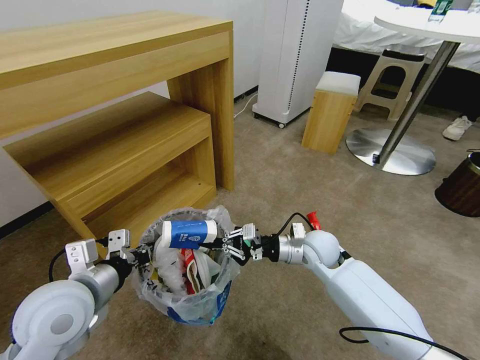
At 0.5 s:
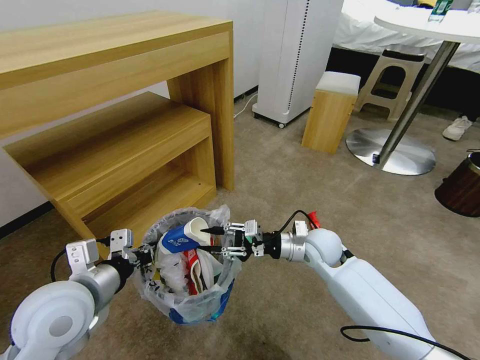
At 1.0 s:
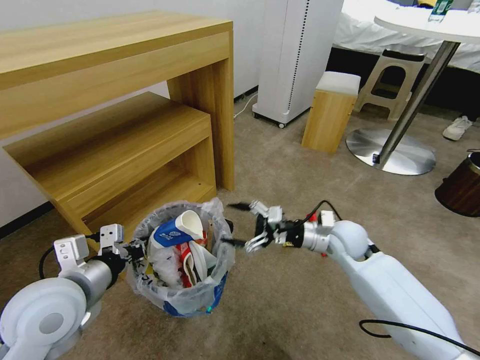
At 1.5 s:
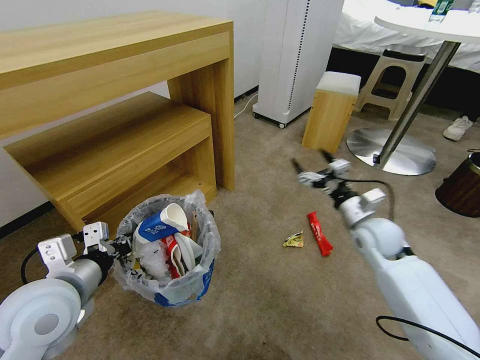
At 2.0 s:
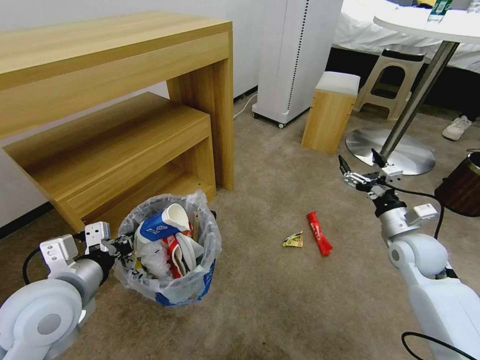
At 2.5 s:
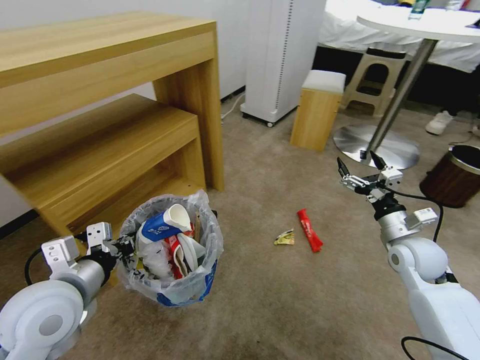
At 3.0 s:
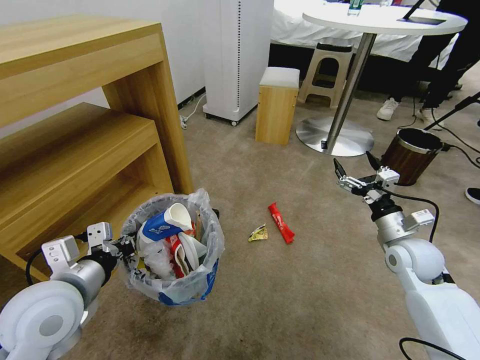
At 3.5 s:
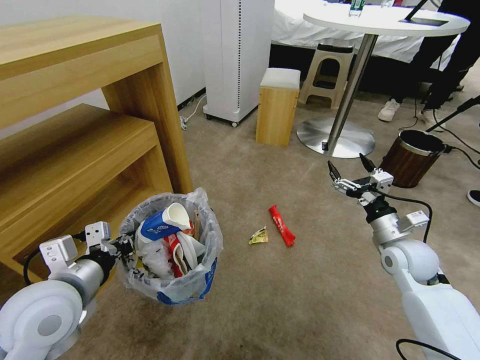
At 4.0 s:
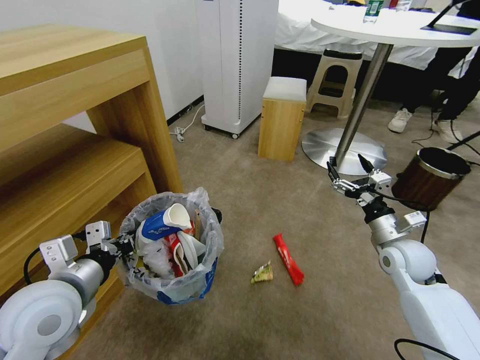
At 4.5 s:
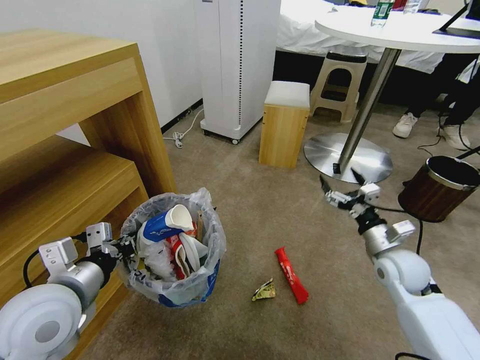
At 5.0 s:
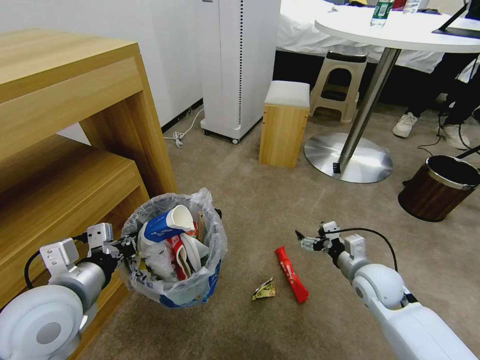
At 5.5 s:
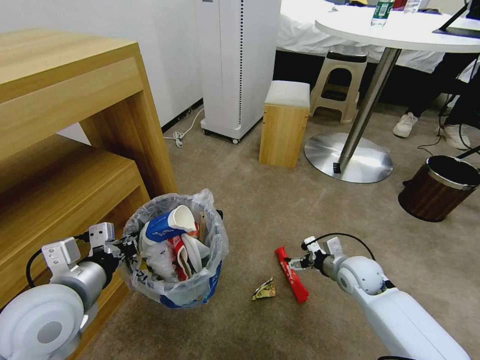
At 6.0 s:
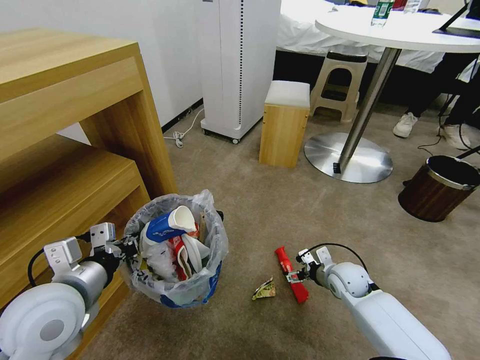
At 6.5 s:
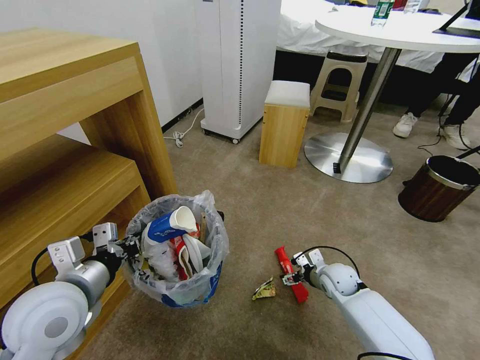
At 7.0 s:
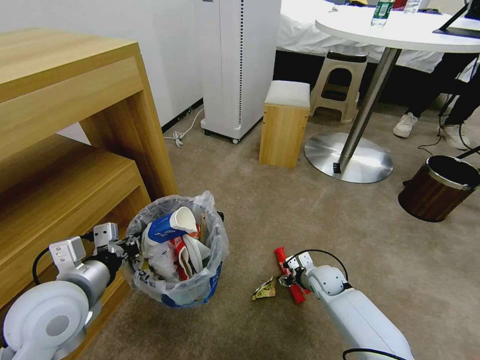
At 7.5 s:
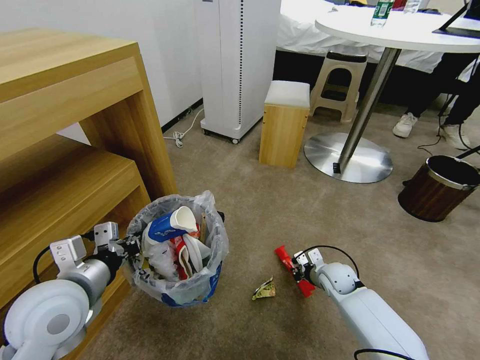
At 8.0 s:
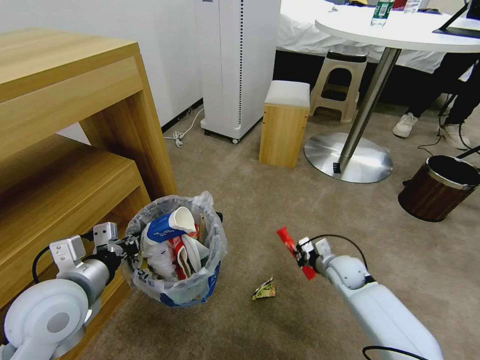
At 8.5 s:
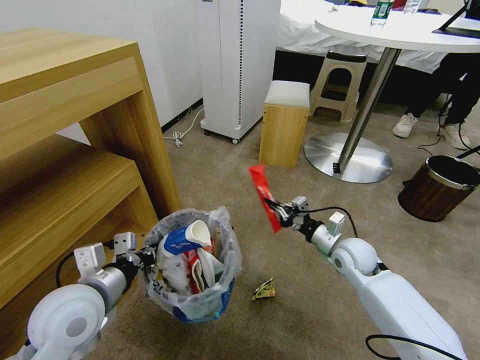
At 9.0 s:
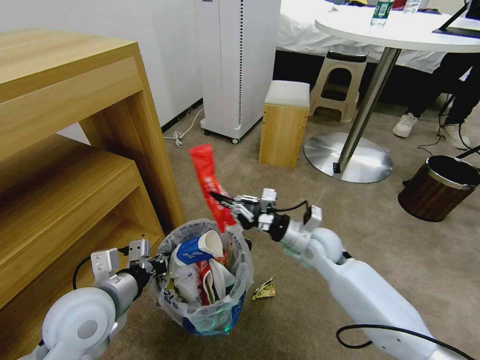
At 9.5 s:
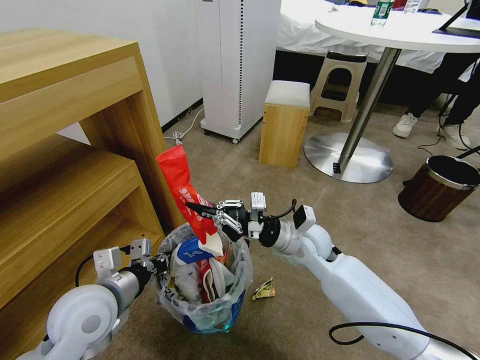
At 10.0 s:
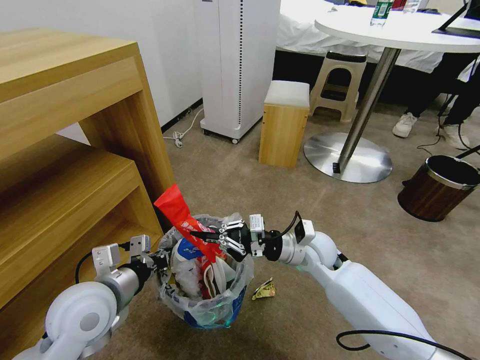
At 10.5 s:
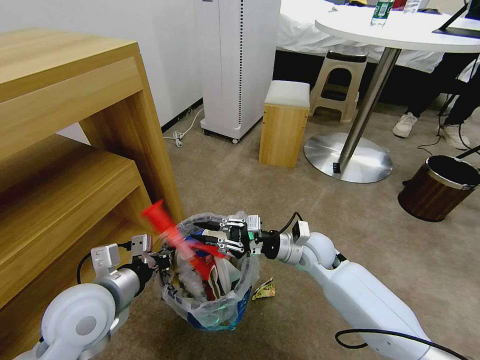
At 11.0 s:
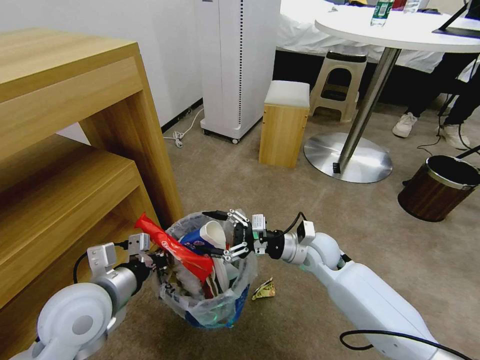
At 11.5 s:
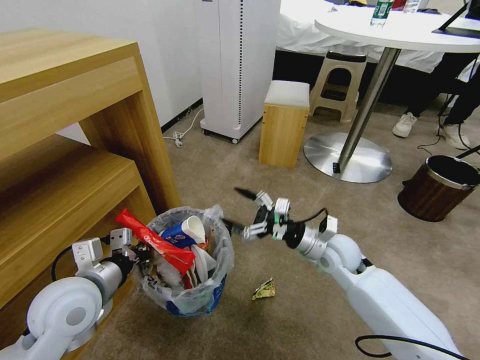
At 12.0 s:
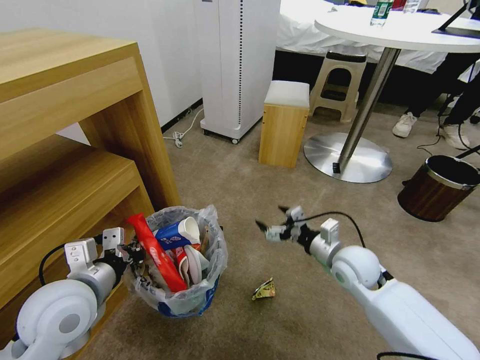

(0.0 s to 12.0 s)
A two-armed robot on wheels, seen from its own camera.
Task of the whole recording: Pick up the trash bin and place the garbage on the floor into it.
0.0 s - 2.0 s: The right gripper goes about 20 cm to the right, and opens up.
4.0 s - 6.0 s: The right gripper shifts about 15 cm downward and to the left.
6.0 s - 8.0 s: The right gripper closes its fingers.
8.0 s - 10.0 s: The right gripper is displaced upward and to the left by roughly 20 cm.
10.0 s - 12.0 s: The right gripper heads to the right, covering roughly 10 cm, and opens its fingers.

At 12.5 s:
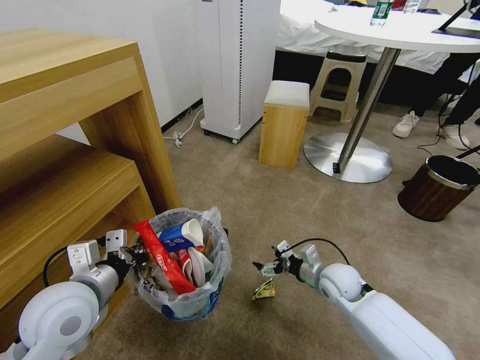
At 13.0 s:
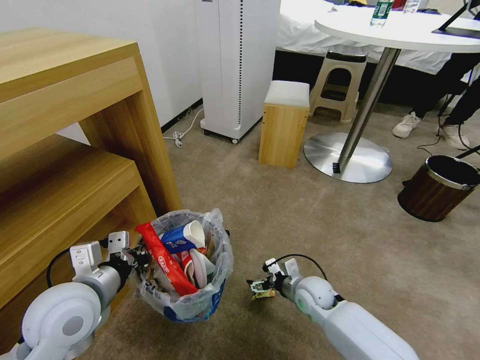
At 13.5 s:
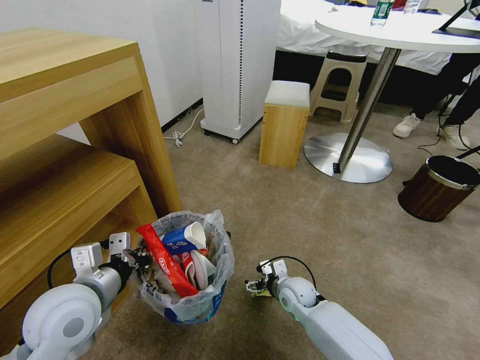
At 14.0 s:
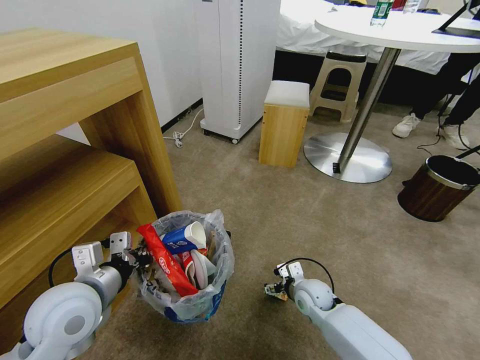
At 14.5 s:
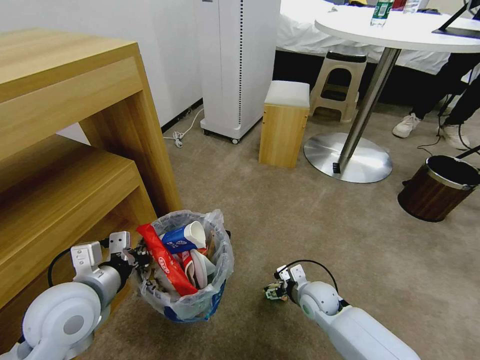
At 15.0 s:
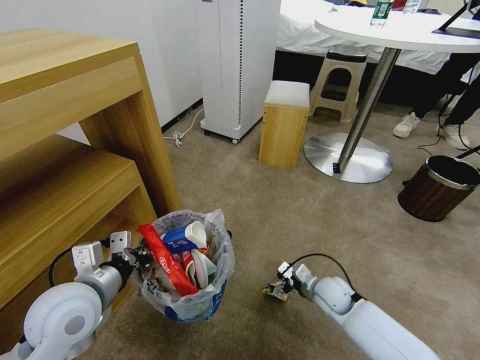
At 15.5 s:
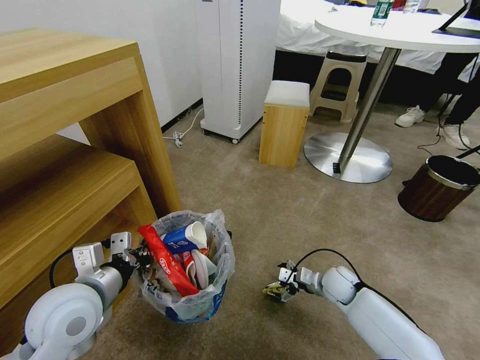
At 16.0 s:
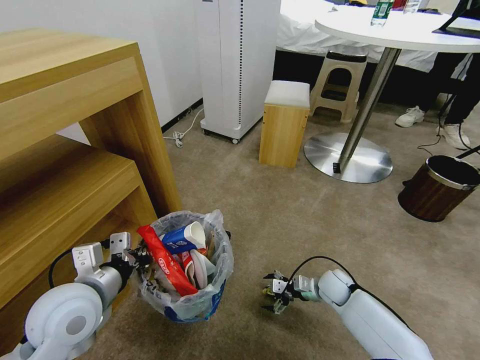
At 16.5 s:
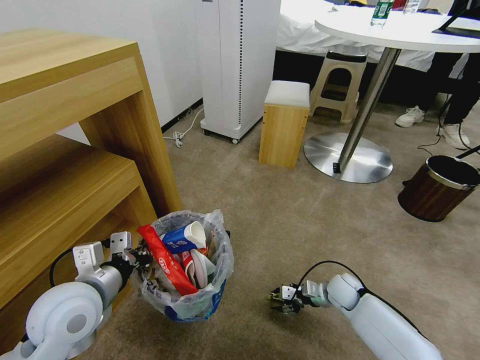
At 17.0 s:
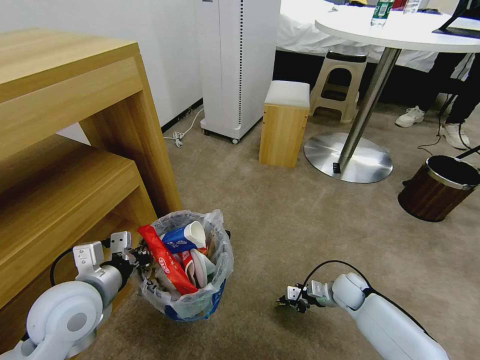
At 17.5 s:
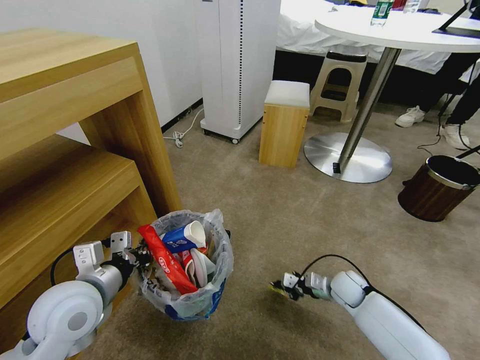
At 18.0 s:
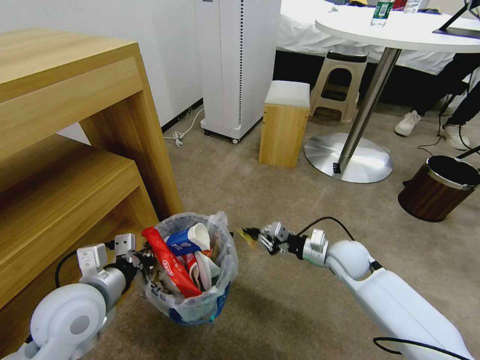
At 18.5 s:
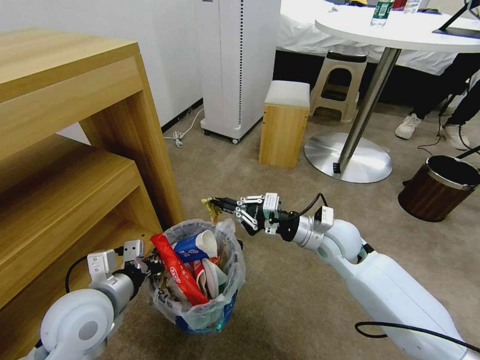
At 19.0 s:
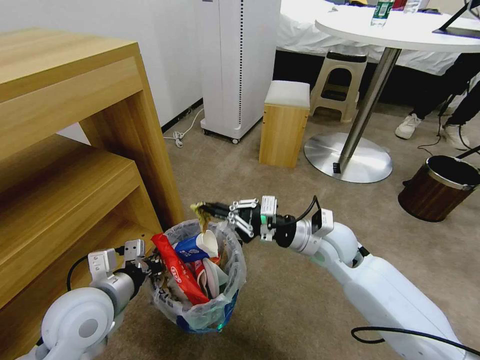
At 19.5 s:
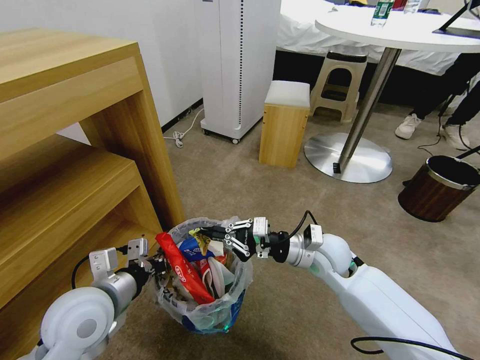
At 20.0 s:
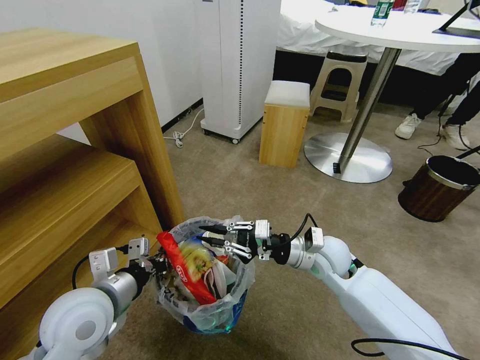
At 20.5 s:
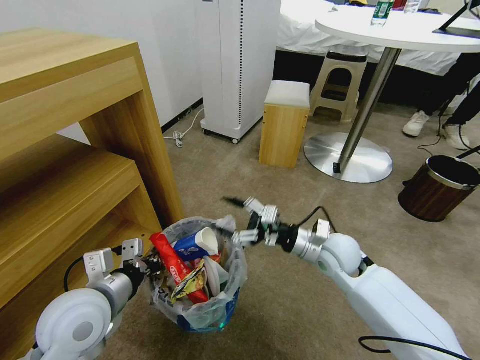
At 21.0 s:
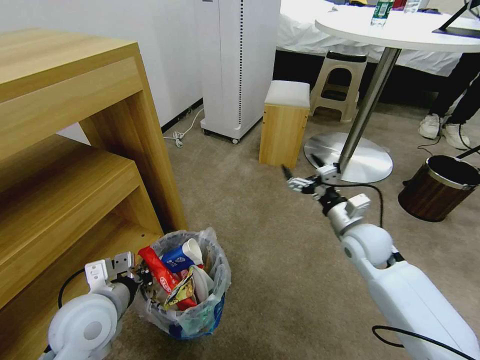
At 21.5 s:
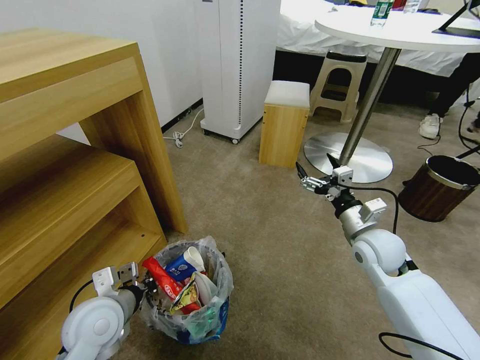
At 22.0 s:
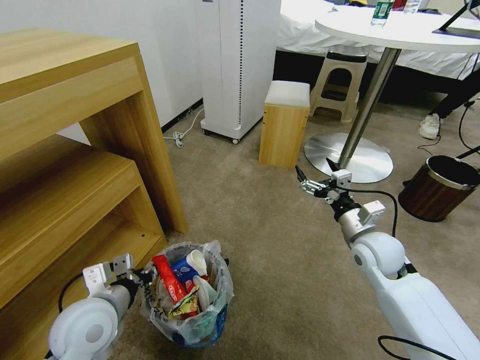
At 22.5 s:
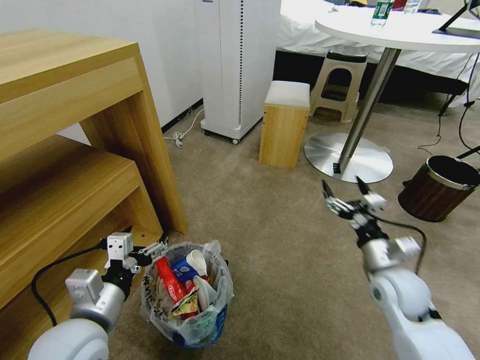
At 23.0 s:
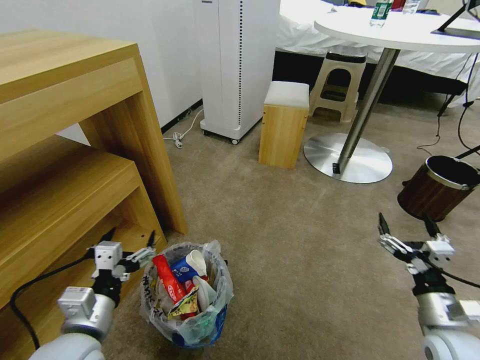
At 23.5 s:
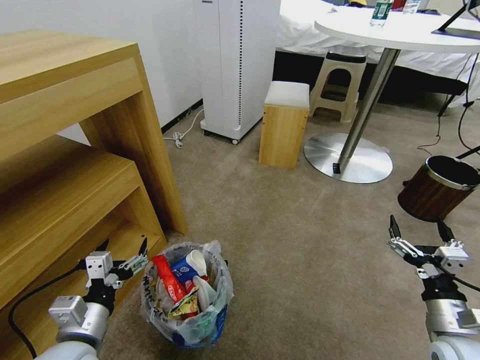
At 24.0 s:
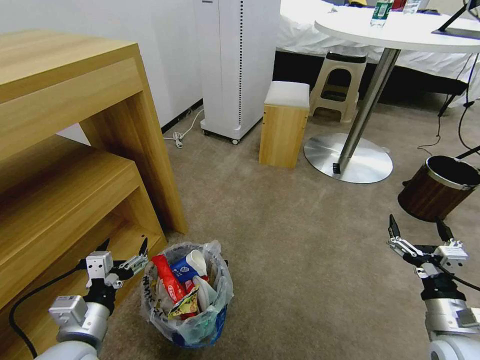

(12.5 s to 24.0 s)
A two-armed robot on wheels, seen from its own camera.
Task of the whole recording: Pick up the trash bin and place the garbage on the floor into it.
12.5 s - 14.5 s: The right gripper shifts approximately 5 cm downward.
14.5 s - 16.5 s: The right gripper heads to the right, covering approximately 10 cm, and closes up.
16.5 s - 18.5 s: The right gripper heads upward and to the left, covering about 25 cm, and closes its fingers.
18.5 s - 20.0 s: The grippers stay close to where they were, moving slightly.
20.0 s - 22.0 s: The left gripper opens up. The right gripper moves to the right, approximately 10 cm, and opens its fingers.
22.0 s - 24.0 s: The right gripper travels backward and to the right by some 20 cm. Meanwhile the left gripper is displaced backward by about 5 cm, and opens.
